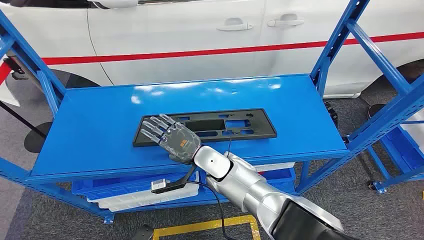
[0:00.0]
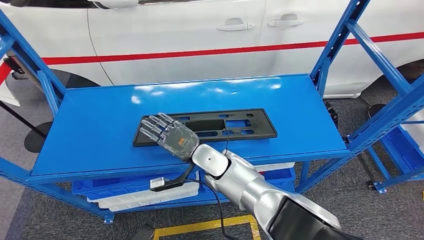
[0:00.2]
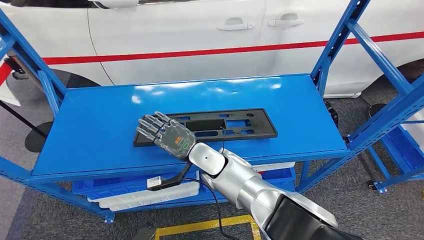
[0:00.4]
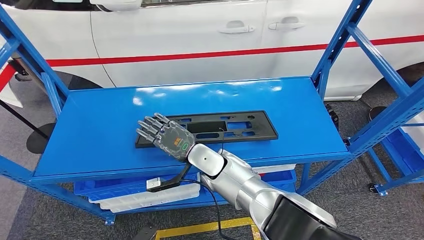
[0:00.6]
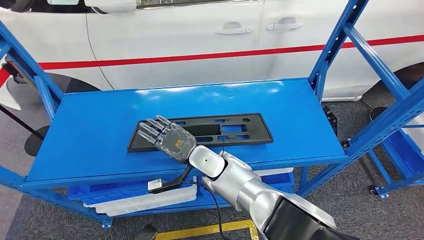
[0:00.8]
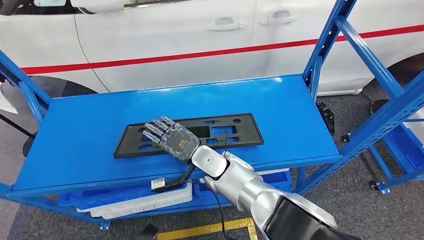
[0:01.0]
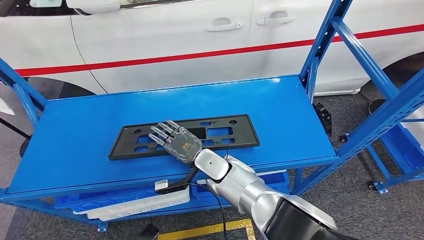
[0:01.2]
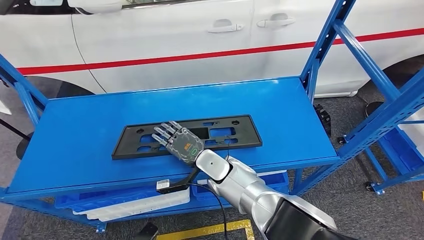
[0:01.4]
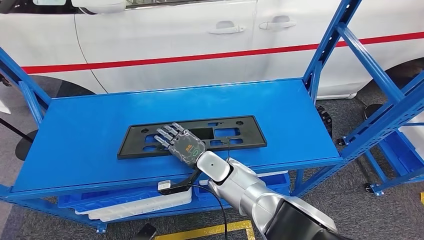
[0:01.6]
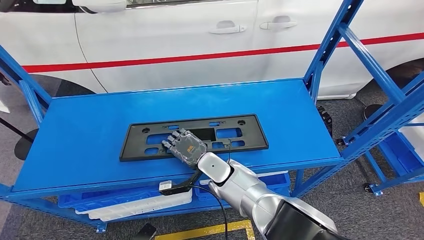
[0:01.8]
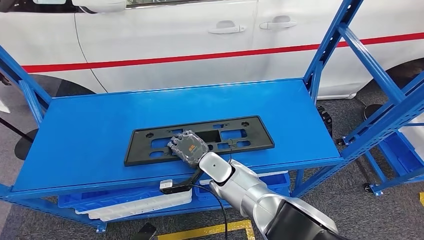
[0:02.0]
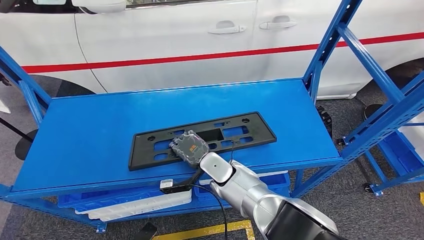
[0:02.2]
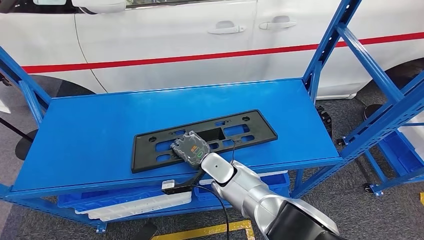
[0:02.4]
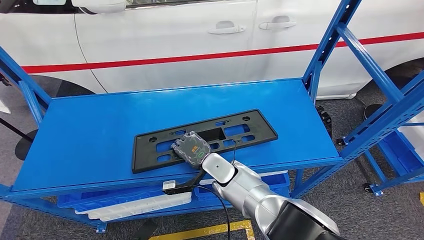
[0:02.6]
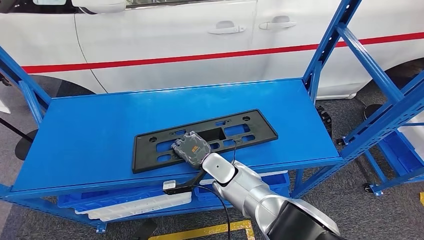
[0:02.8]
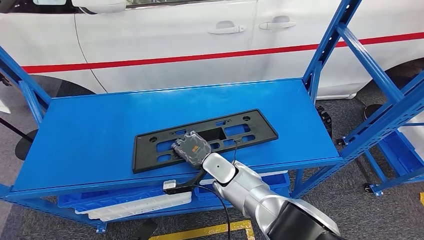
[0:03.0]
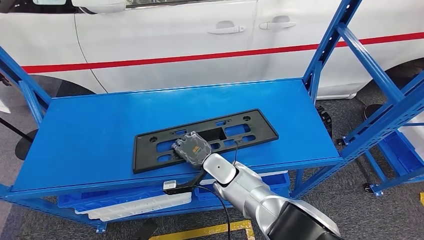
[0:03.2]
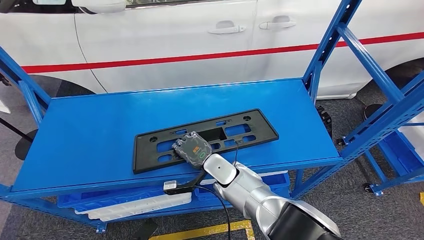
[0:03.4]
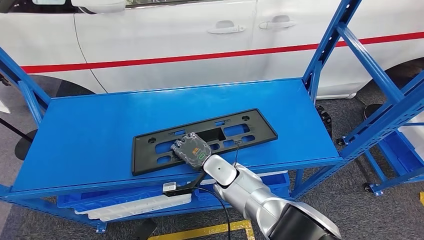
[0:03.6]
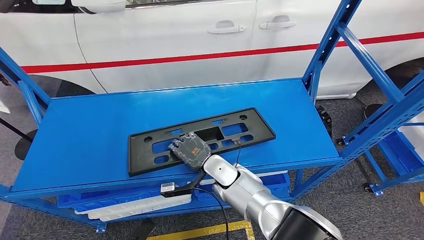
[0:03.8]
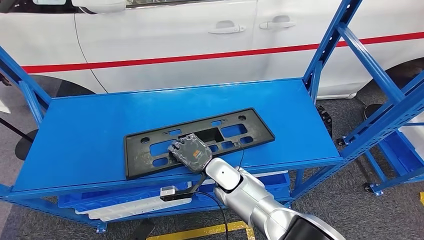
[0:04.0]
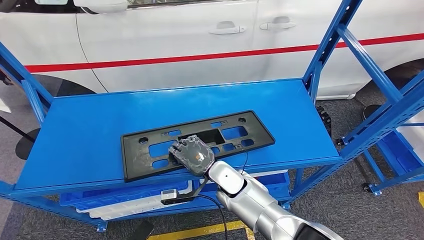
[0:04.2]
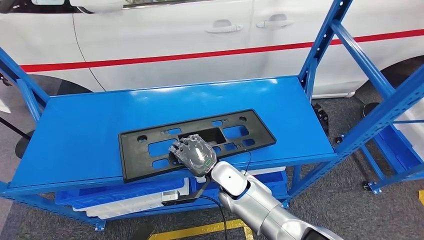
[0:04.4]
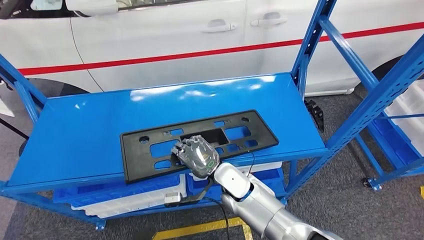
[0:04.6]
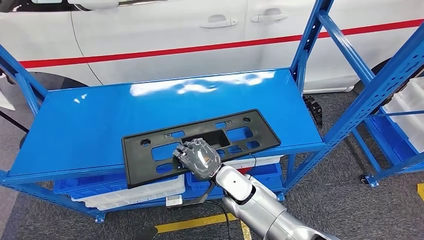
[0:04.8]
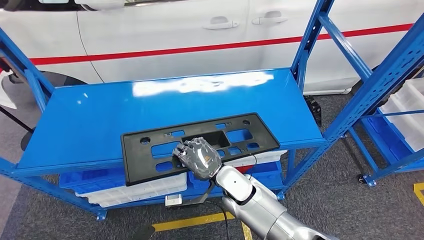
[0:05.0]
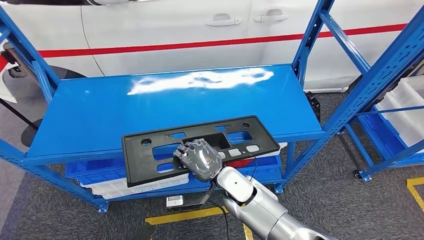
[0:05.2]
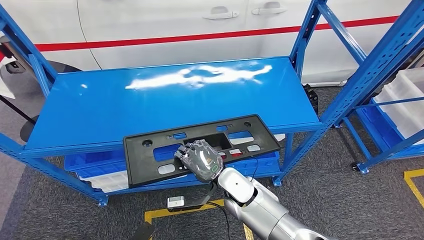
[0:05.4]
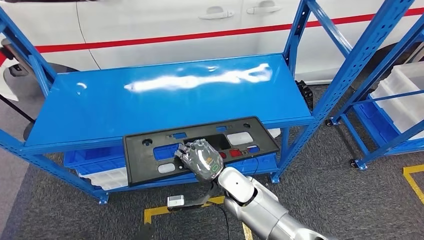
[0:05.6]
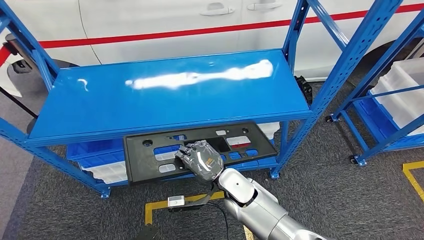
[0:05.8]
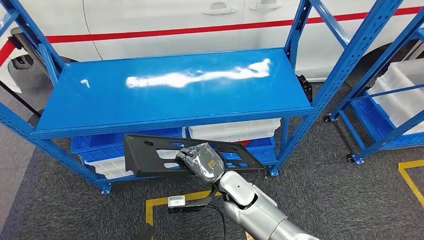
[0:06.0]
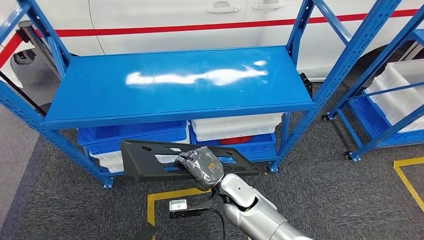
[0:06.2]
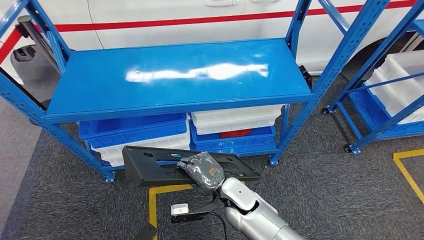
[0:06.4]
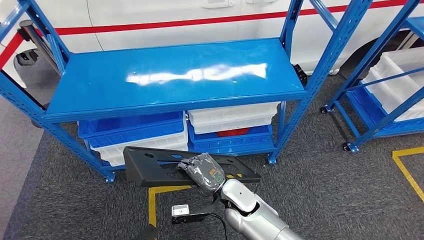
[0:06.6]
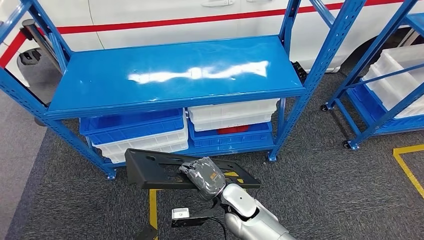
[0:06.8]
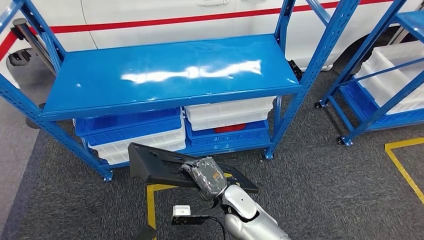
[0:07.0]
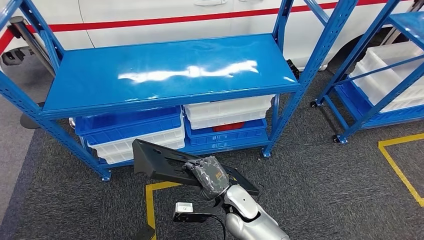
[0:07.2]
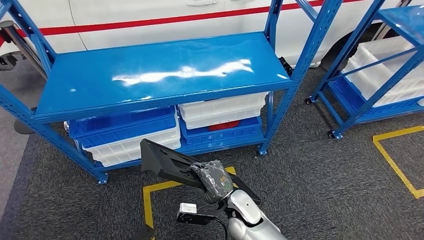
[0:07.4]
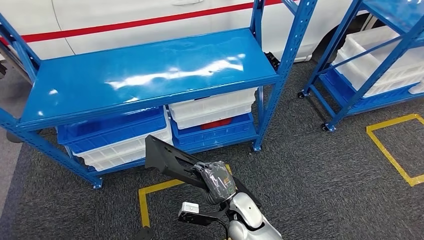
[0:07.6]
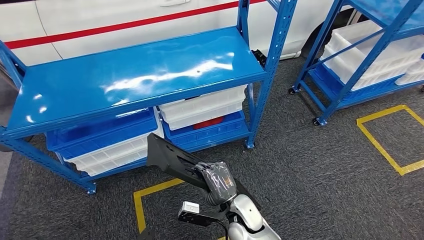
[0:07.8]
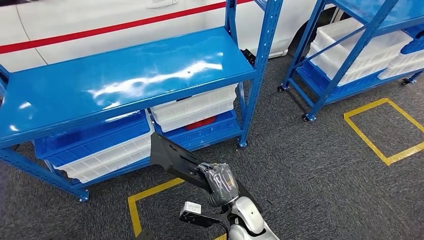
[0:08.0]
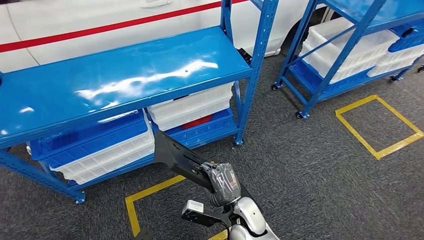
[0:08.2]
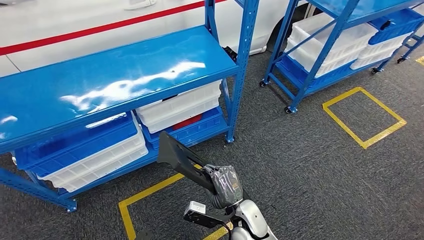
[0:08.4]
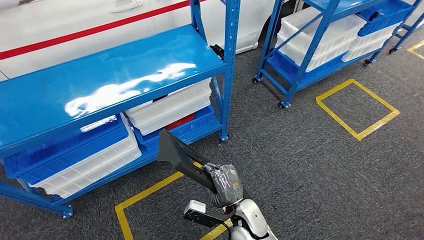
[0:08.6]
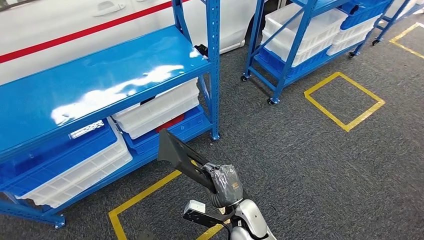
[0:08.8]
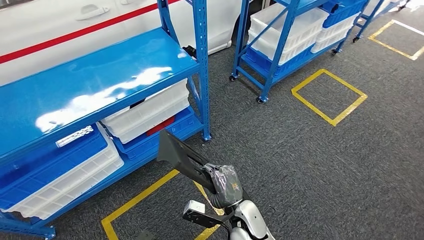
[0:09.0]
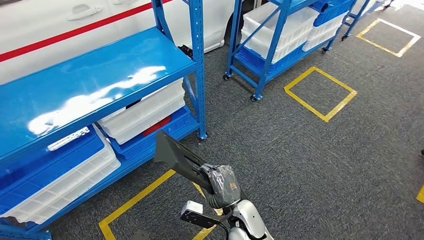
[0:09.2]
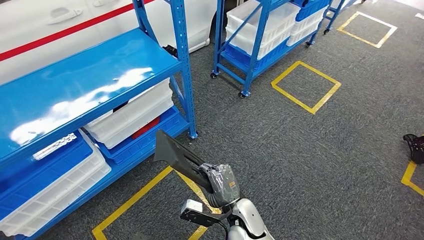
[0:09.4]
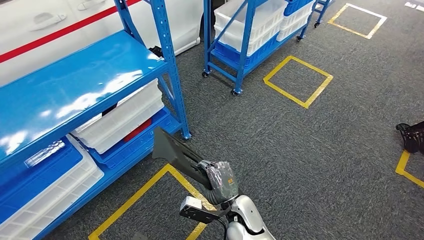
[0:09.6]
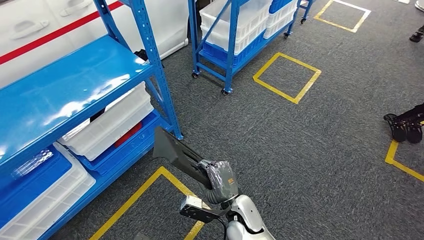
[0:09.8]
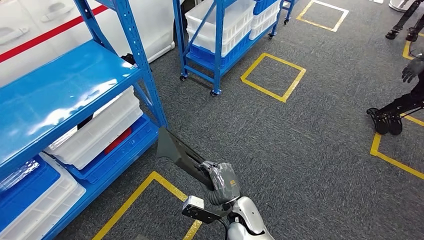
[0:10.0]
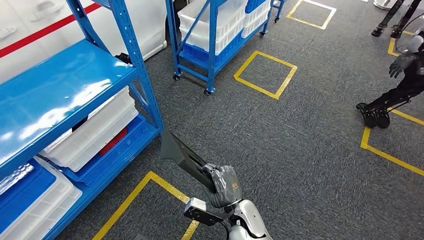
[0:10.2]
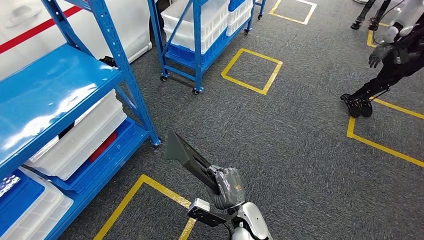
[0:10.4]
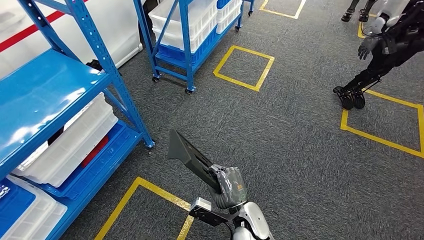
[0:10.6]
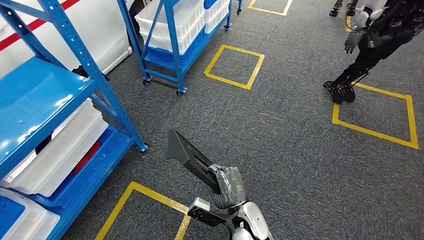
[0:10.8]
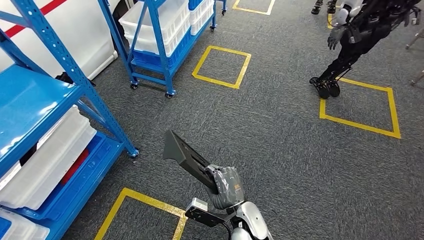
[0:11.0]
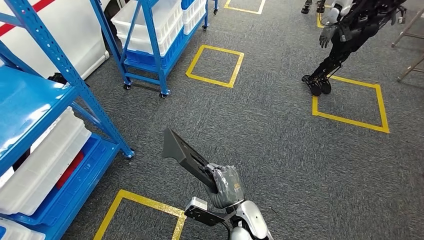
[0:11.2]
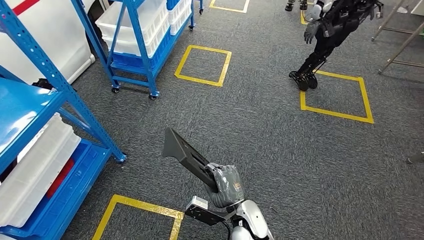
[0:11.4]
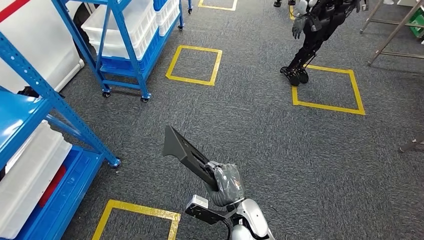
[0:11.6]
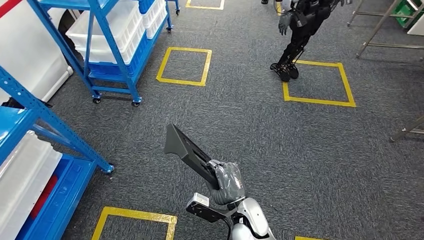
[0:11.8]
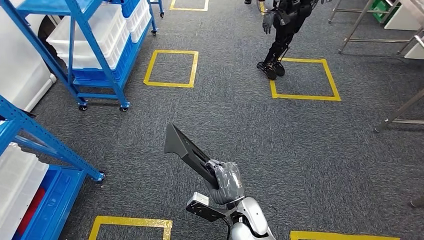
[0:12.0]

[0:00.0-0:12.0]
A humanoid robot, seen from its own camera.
Step, 0.0 to 5.0 s: Pick up the large material from the shelf.
1.6 to 3.0 s: The hands make only small movements.

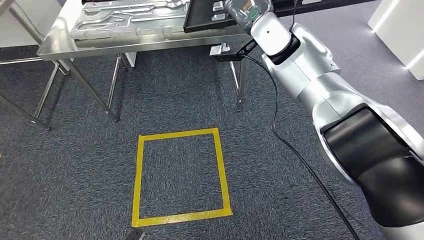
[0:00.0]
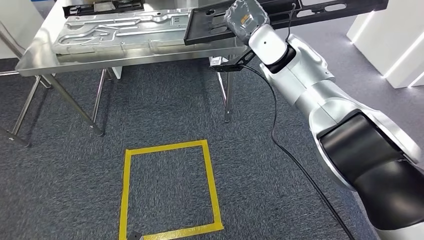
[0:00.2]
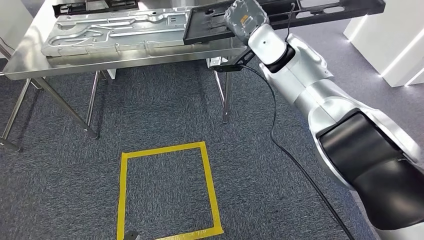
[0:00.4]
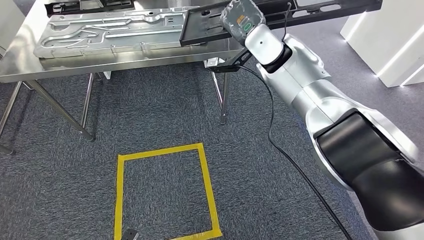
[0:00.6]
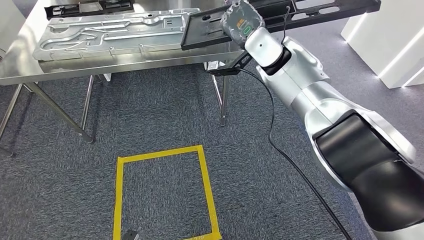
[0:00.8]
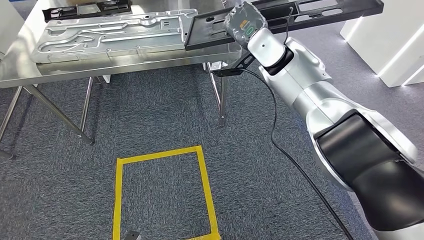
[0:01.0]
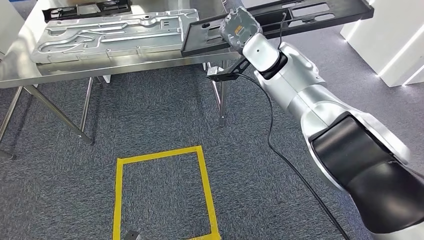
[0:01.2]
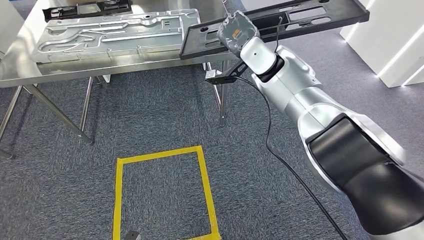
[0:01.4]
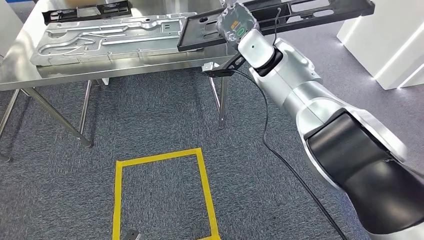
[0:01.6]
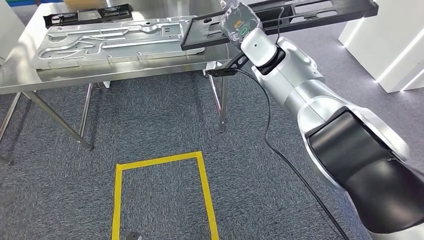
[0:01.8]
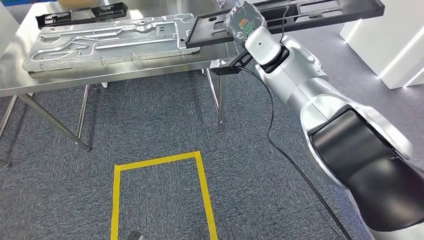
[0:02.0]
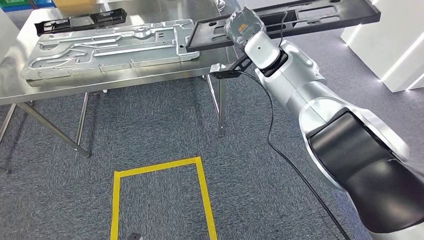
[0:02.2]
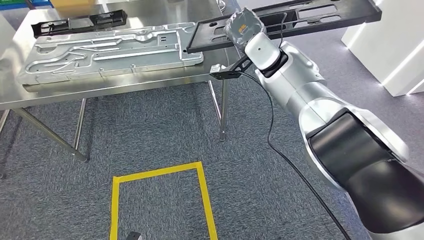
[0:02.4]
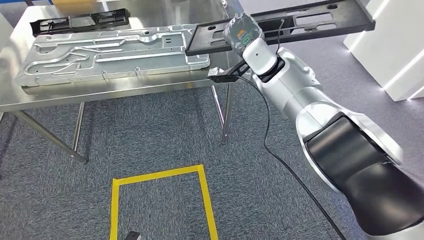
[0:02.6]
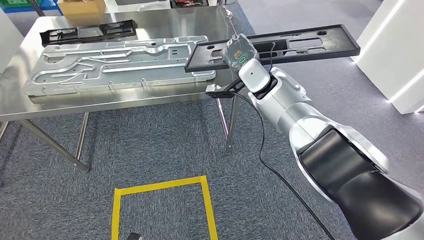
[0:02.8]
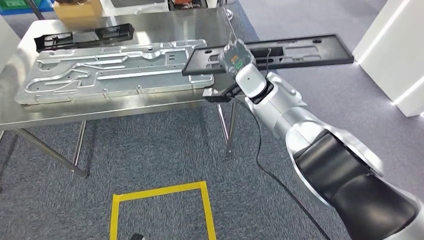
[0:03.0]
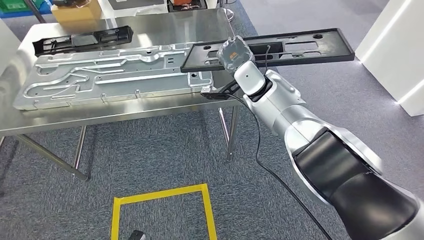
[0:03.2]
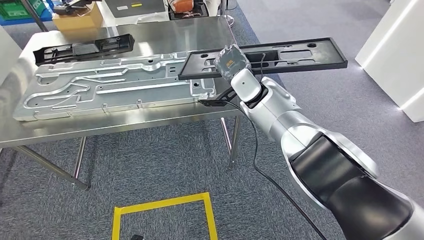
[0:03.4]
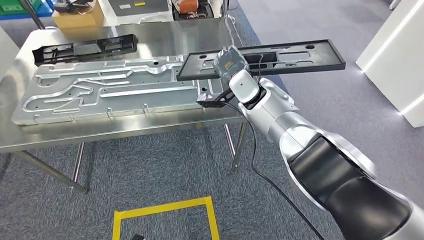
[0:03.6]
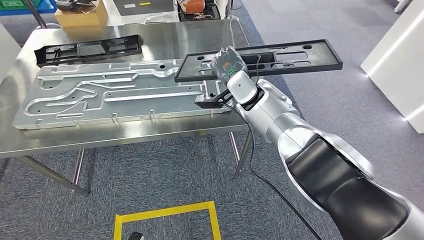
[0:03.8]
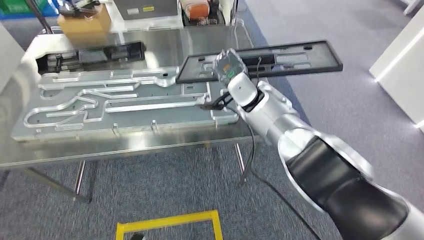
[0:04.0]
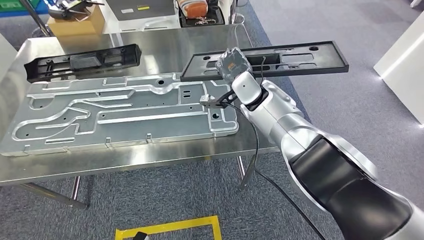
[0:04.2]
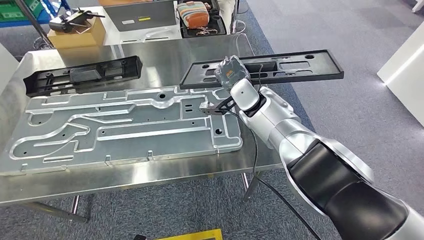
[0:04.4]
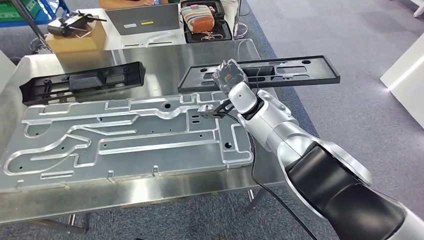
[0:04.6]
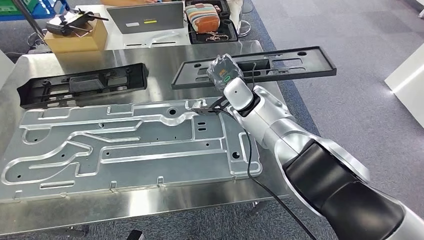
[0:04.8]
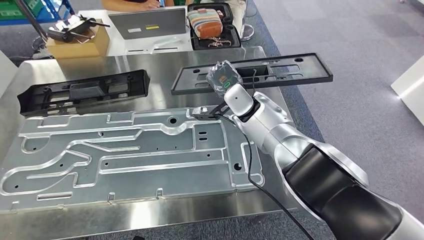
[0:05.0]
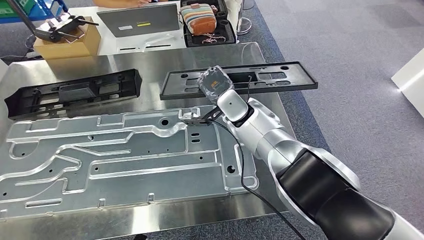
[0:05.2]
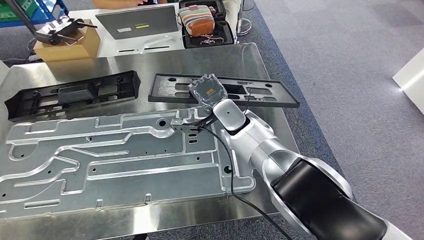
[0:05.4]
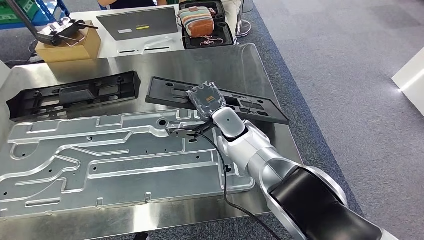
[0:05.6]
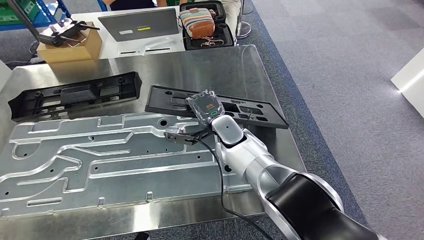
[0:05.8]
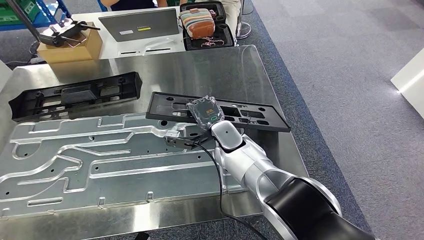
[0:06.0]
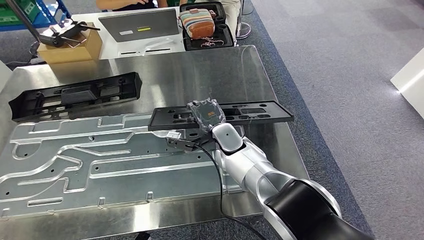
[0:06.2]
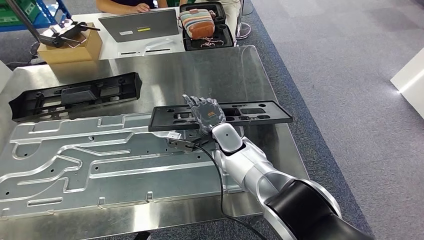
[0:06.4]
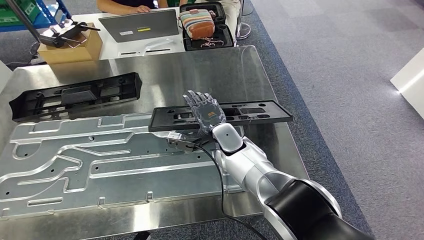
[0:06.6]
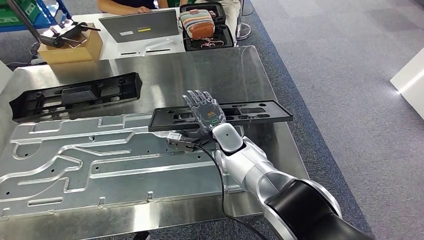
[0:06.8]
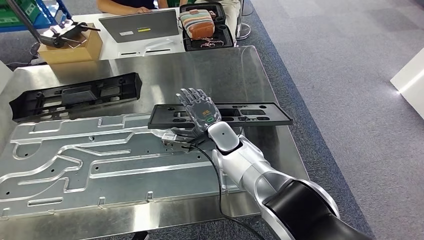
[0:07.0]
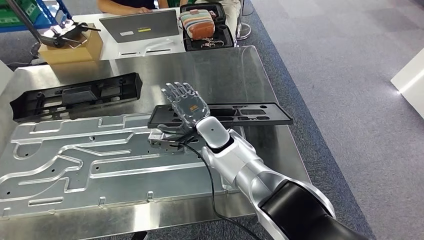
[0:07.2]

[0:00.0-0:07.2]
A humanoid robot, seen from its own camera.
Step, 0.0 to 5.0 s: Move the large material to the workbench.
5.8 to 7.2 s: The hands make only small movements.
